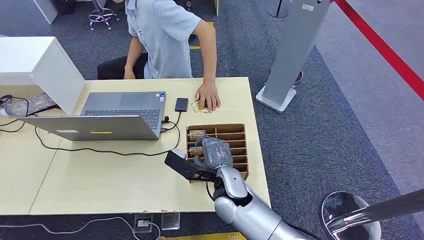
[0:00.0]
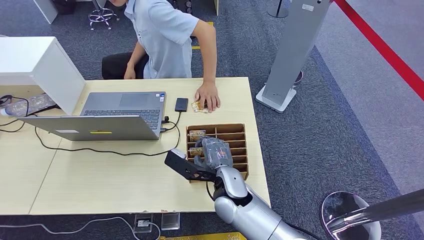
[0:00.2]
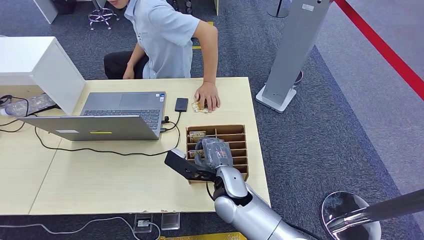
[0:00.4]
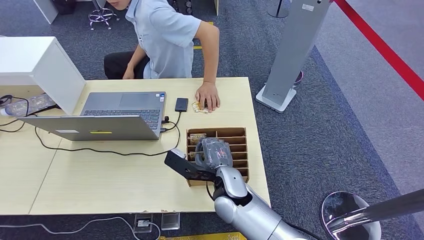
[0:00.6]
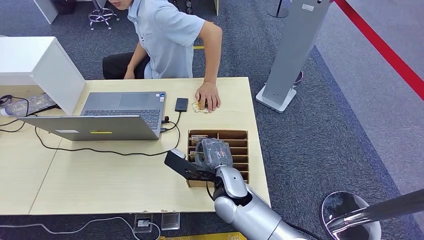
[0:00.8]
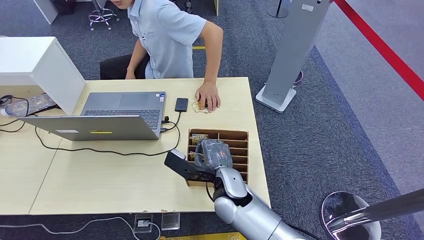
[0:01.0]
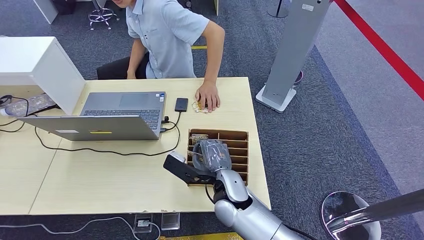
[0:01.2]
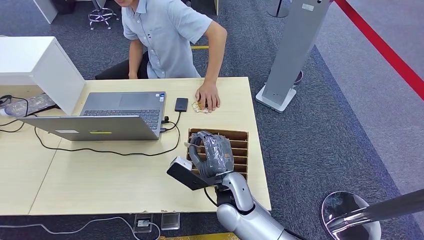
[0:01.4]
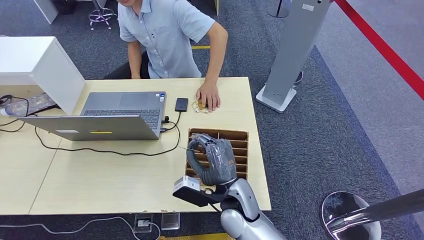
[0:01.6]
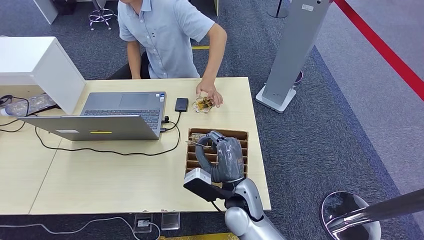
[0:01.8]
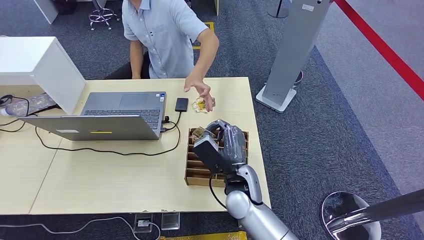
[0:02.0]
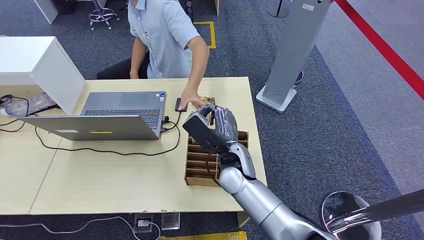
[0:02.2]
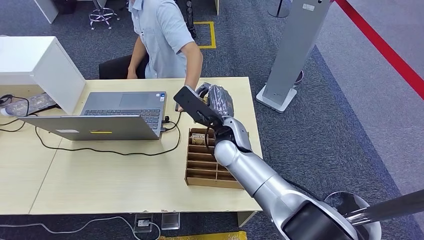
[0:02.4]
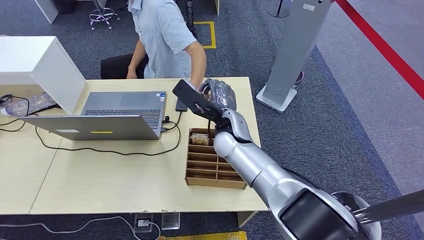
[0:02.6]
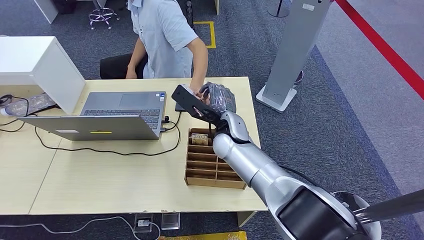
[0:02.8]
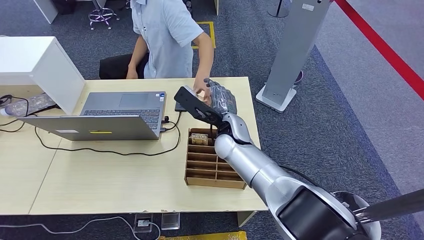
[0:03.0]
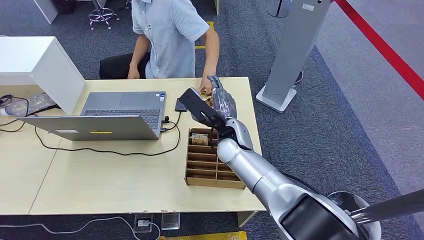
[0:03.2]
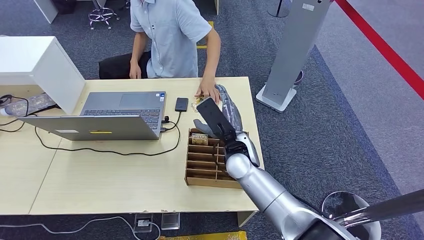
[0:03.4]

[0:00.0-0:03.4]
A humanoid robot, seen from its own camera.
Step, 0:00.0 to 0:01.6: Pick up the key card from the card box.
Step, 0:02.4 to 0:03.4: Hand the key card to the target.
0:01.6 to 0:03.4: The right hand heads forward, covering some 10 cm.
